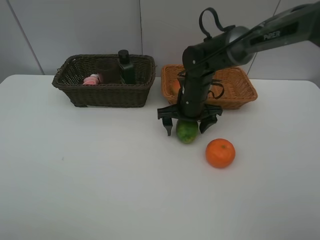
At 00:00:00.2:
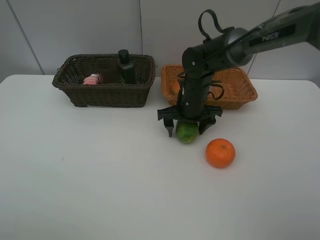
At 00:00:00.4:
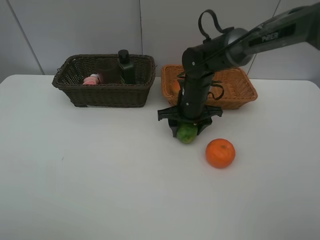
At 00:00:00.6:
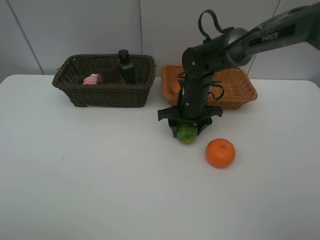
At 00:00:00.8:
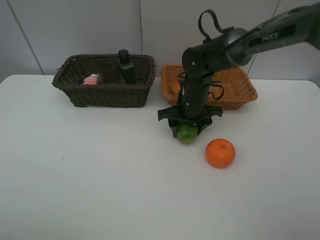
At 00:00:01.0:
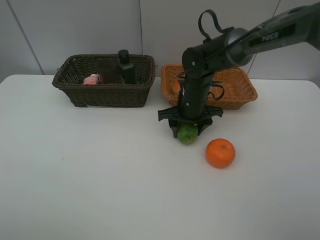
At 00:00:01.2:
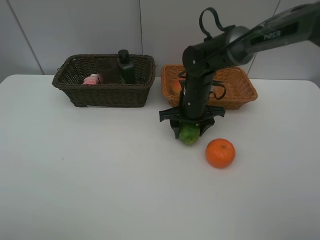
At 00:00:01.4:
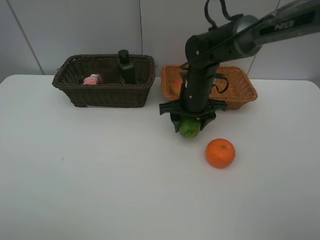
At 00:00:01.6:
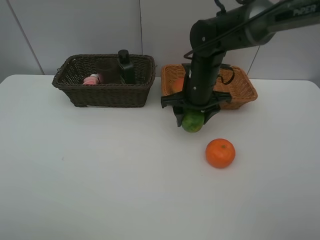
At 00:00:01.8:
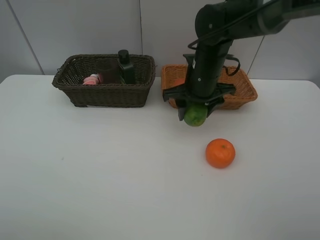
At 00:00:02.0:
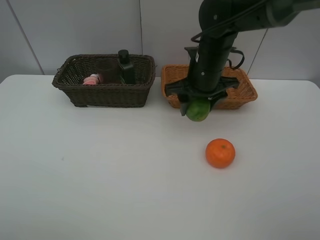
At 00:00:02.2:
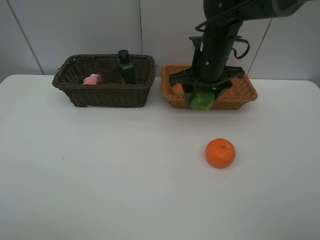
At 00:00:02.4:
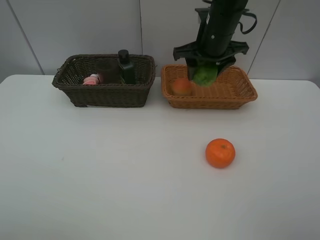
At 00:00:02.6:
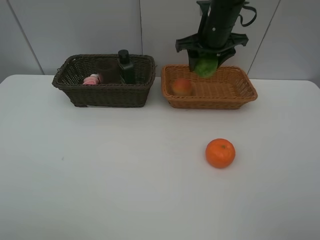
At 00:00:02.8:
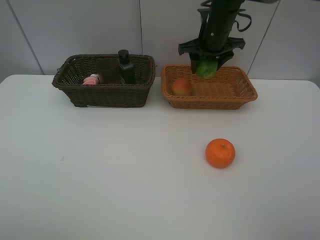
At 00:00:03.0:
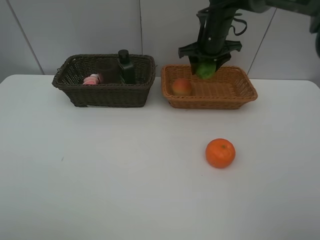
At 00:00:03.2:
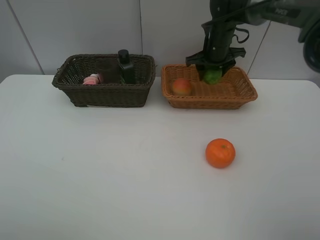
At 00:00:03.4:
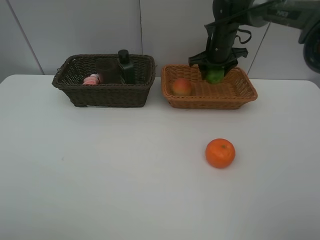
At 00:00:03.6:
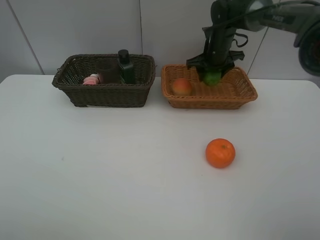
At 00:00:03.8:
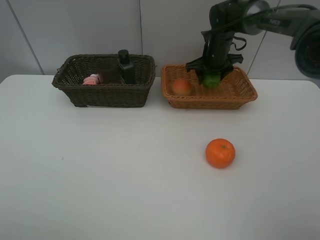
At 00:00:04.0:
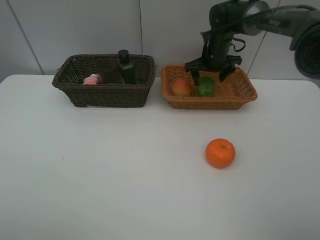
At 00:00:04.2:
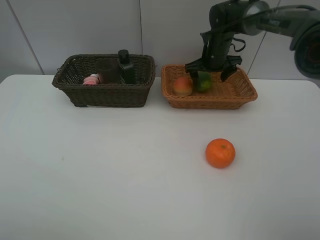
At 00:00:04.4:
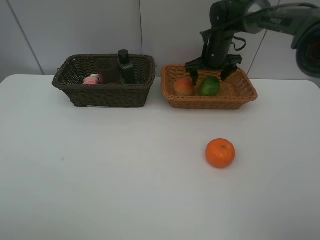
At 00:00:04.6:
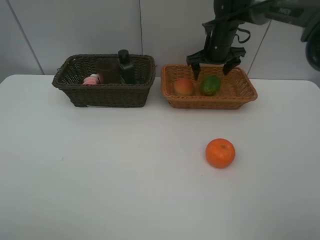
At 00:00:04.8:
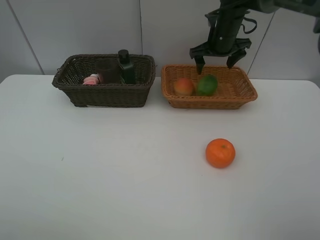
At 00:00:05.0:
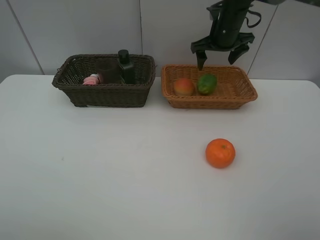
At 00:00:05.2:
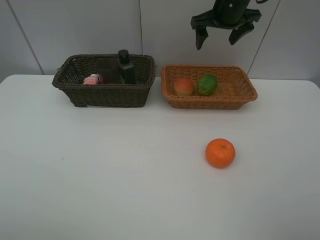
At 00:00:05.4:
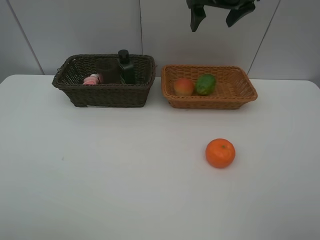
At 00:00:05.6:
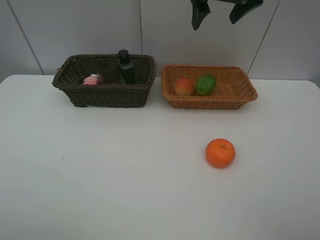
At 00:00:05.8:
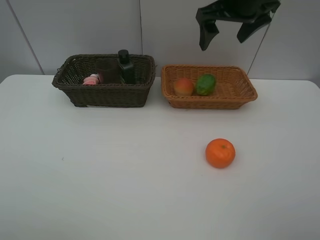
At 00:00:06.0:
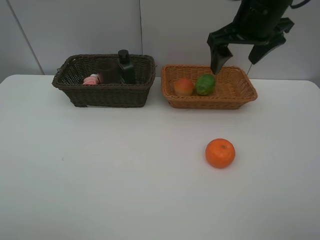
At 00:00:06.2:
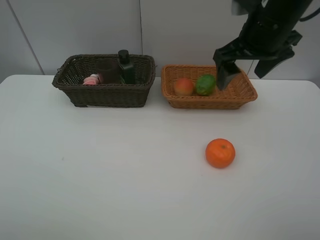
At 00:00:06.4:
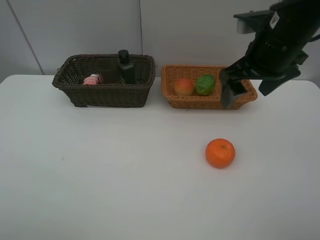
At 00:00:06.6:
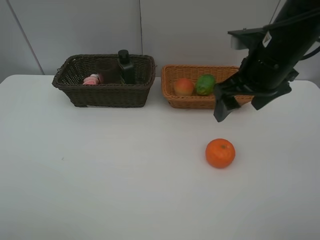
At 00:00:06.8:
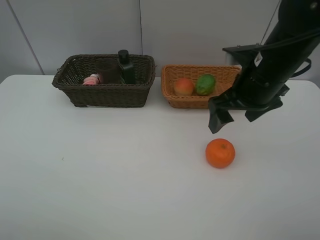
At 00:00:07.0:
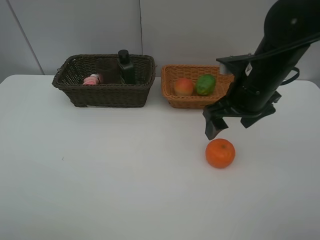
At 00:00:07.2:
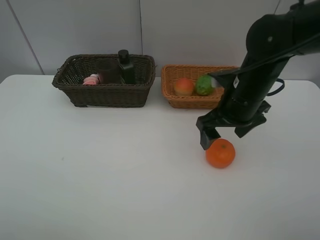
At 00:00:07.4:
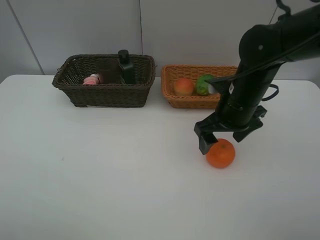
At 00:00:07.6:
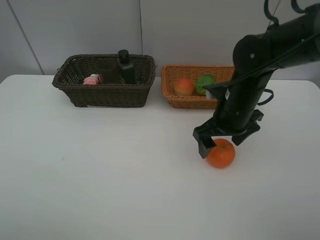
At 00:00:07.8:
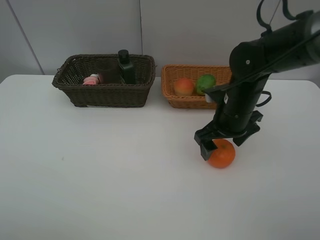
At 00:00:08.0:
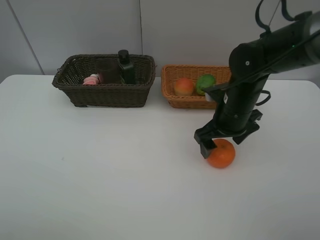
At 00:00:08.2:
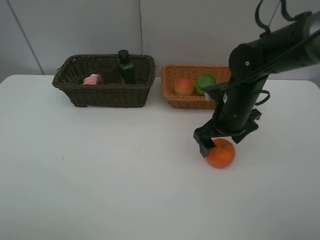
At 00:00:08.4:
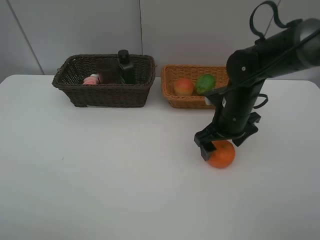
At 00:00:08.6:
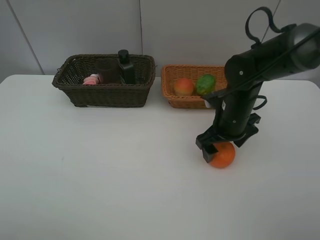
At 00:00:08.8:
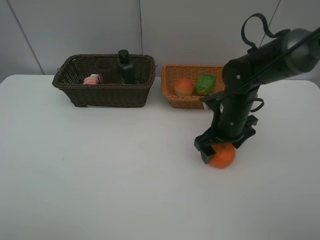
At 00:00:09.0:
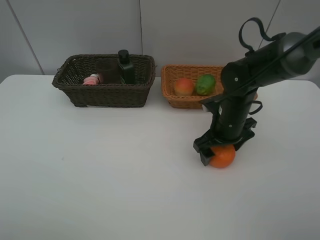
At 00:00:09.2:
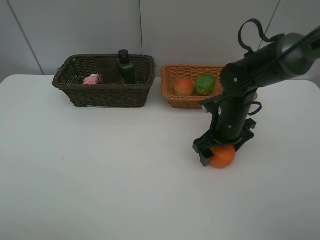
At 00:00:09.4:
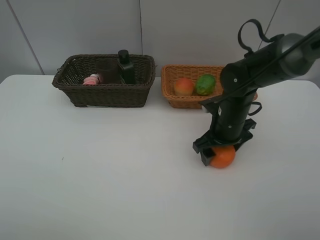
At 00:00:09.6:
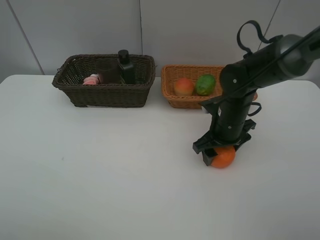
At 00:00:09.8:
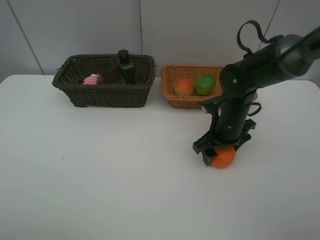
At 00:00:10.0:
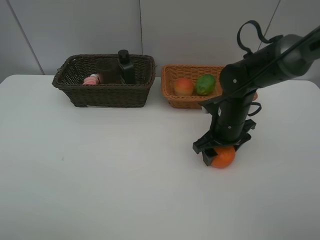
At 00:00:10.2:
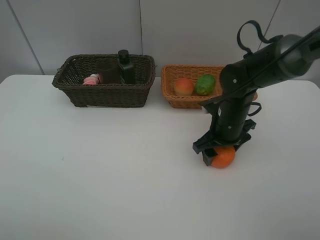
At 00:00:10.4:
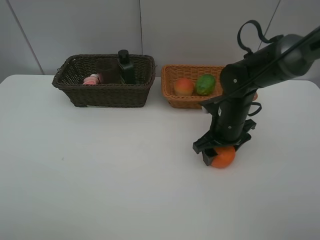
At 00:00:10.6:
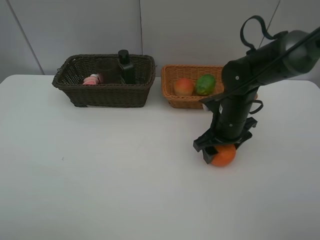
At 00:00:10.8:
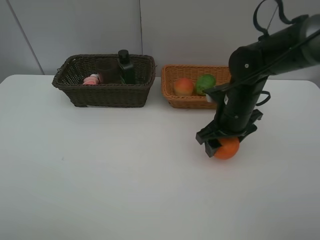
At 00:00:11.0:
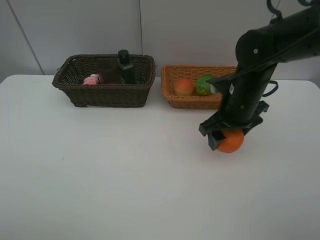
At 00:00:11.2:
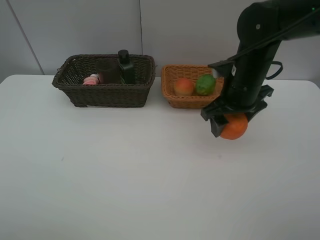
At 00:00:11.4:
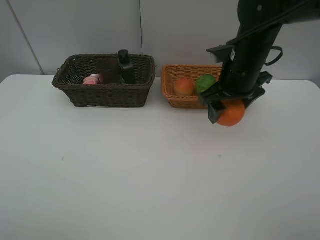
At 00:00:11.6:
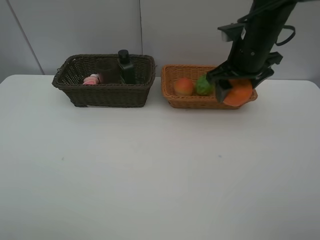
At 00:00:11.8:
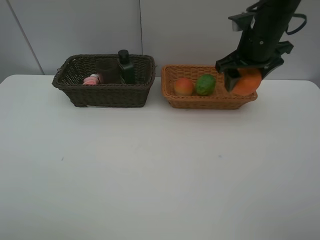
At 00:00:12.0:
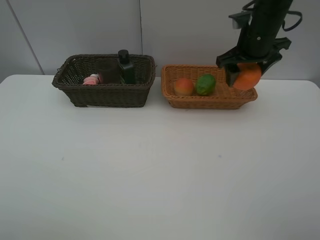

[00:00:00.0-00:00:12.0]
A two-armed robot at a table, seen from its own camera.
Task of the whole recording: place multiple objects separately in different baskets.
00:00:00.0 to 00:00:01.6: The right gripper heads upward, covering approximately 5 cm, and closes.
00:00:01.6 to 00:00:03.0: The right gripper is displaced forward by approximately 10 cm.
00:00:03.0 to 00:00:04.4: The right gripper opens up.
00:00:04.4 to 00:00:06.0: The right gripper shifts about 20 cm backward and upward.
00:00:06.0 to 00:00:07.6: The right gripper travels downward by roughly 15 cm.
00:00:07.6 to 00:00:09.0: The grippers stay close to where they were, moving slightly.
00:00:09.0 to 00:00:10.4: The right gripper closes.
00:00:10.4 to 00:00:12.0: The right gripper travels upward and forward by roughly 15 cm.

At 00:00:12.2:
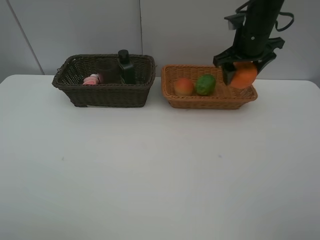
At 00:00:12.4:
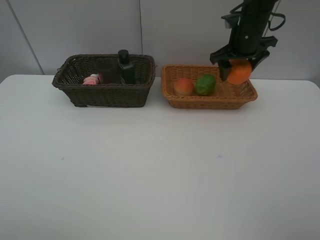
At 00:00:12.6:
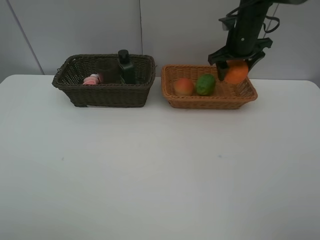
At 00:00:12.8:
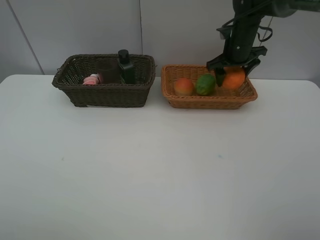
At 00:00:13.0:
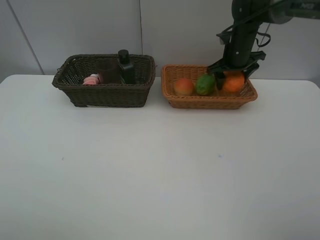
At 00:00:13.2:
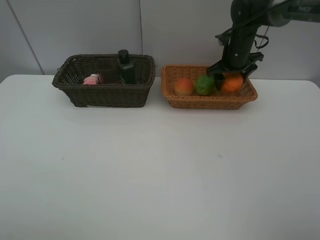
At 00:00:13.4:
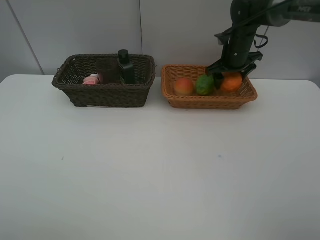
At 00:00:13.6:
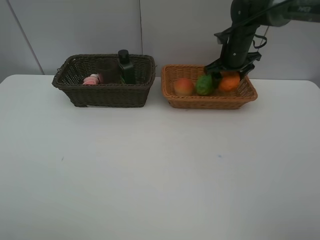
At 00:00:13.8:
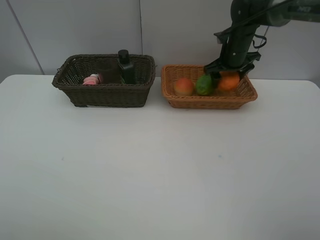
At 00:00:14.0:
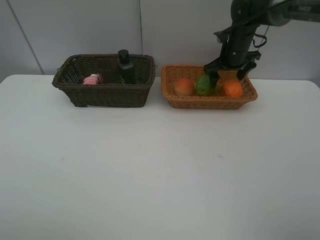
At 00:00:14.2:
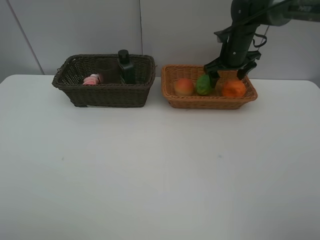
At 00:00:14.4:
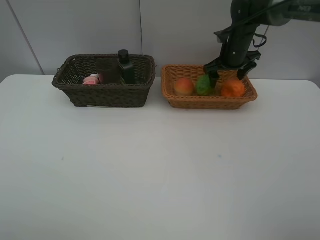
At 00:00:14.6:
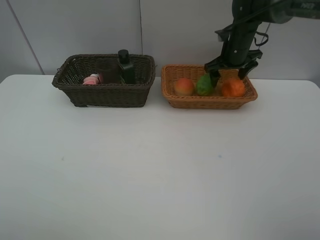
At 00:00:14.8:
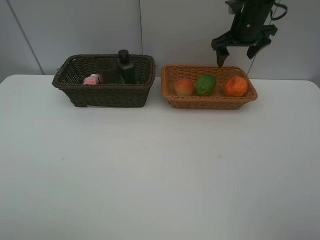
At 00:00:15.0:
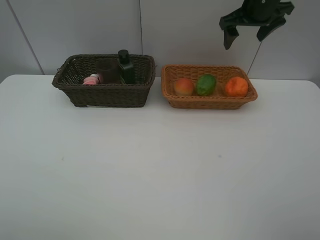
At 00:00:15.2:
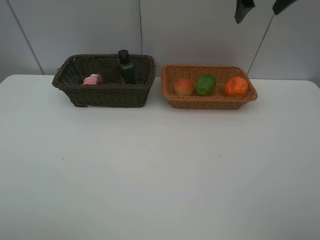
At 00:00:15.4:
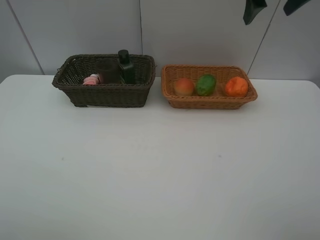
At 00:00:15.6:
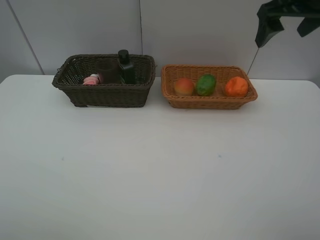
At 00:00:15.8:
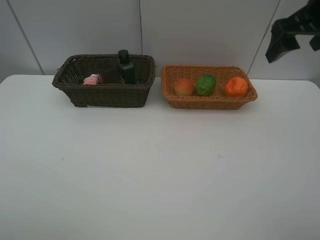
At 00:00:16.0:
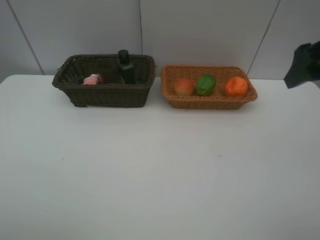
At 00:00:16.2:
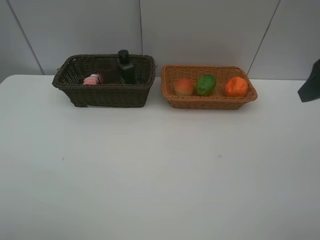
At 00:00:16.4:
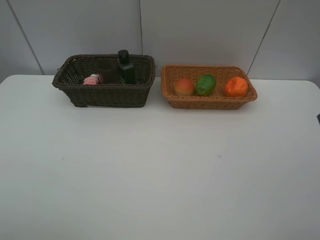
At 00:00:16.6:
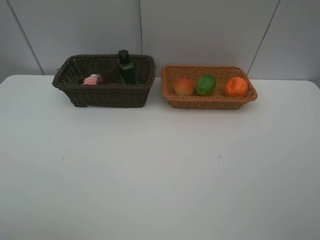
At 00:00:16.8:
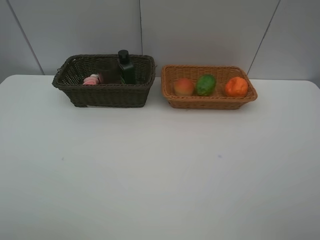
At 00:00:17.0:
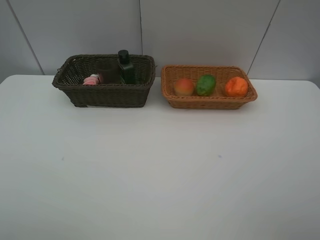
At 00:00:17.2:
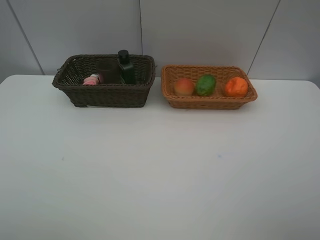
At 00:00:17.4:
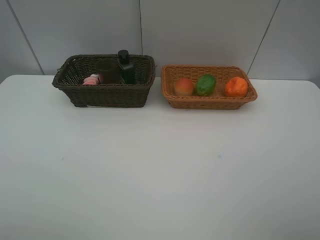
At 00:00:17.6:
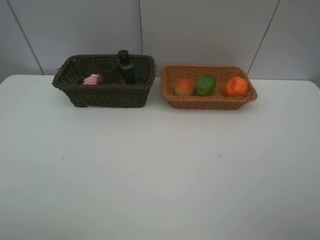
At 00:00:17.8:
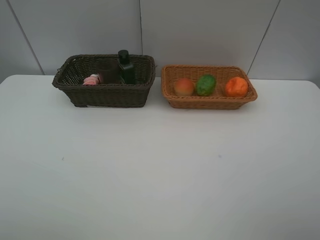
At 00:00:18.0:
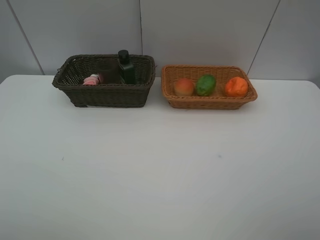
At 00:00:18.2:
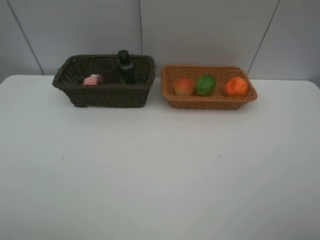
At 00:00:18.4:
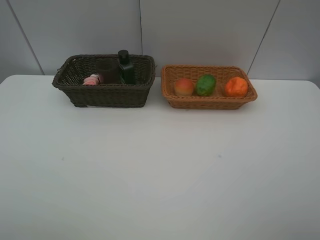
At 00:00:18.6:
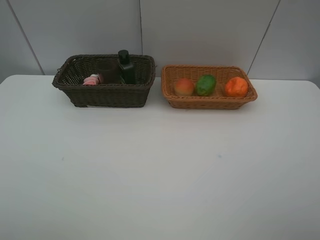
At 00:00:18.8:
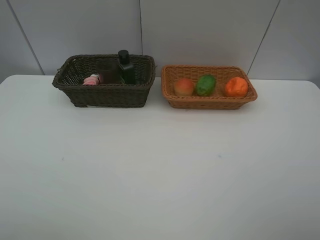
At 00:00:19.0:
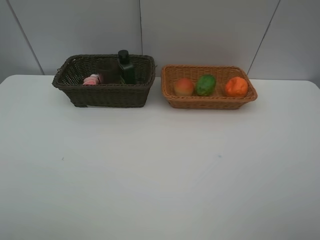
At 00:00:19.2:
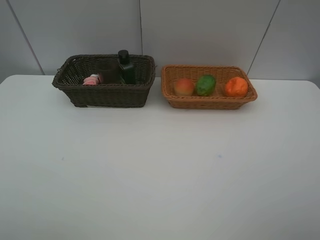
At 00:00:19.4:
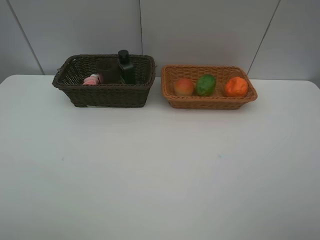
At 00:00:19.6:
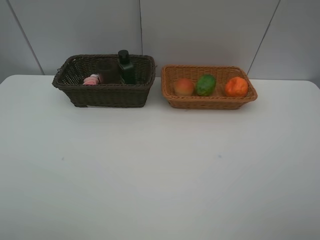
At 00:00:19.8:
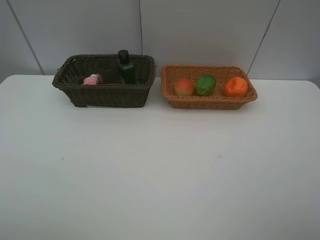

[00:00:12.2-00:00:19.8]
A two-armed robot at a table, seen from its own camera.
Task of the whole recording: place multiple objects separately in different baskets.
00:00:12.2 to 00:00:13.8: The right gripper travels forward and downward by roughly 10 cm.
00:00:13.8 to 00:00:15.2: The right gripper is displaced upward and backward by roughly 20 cm.
00:00:15.2 to 00:00:16.8: The right gripper goes roughly 35 cm backward.
00:00:18.2 to 00:00:19.8: Both grippers stay about where they are.
